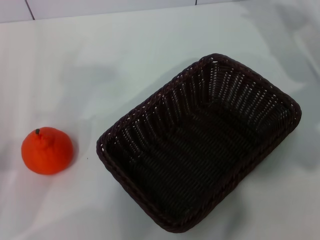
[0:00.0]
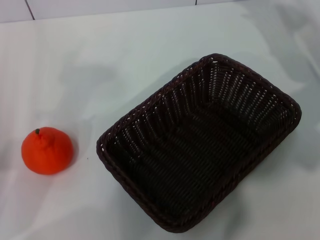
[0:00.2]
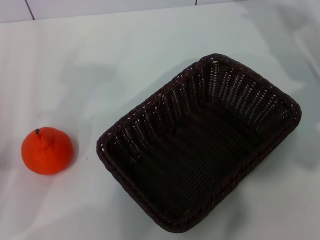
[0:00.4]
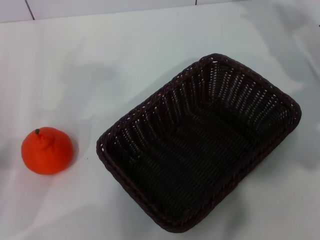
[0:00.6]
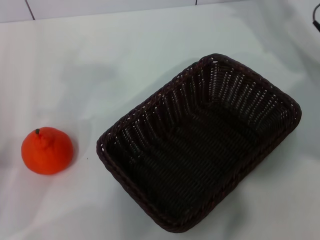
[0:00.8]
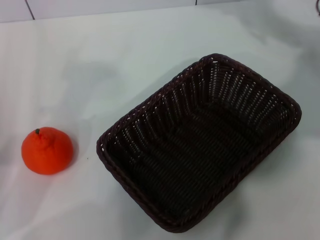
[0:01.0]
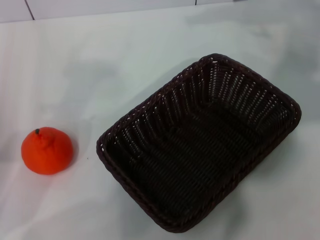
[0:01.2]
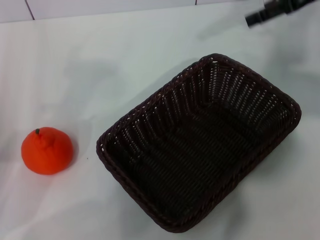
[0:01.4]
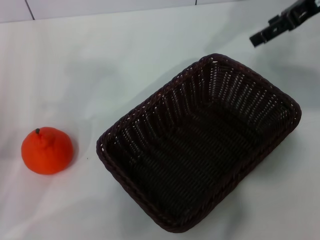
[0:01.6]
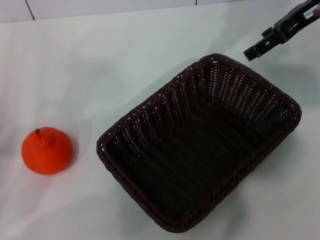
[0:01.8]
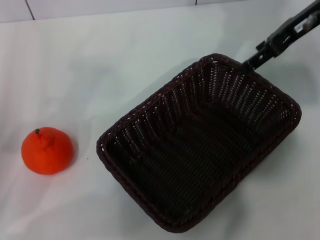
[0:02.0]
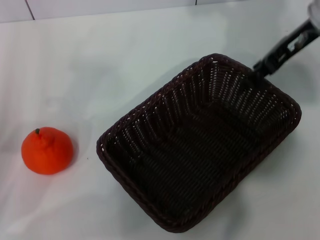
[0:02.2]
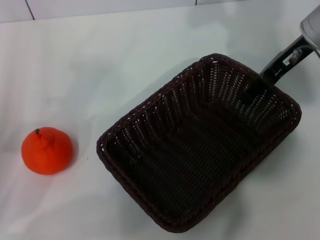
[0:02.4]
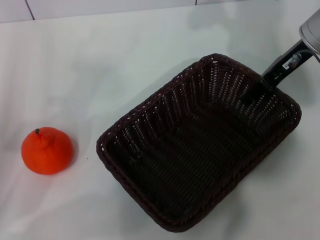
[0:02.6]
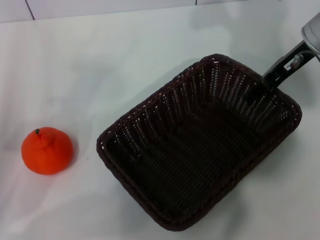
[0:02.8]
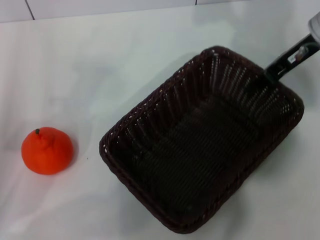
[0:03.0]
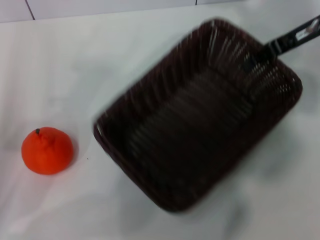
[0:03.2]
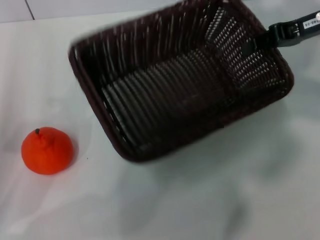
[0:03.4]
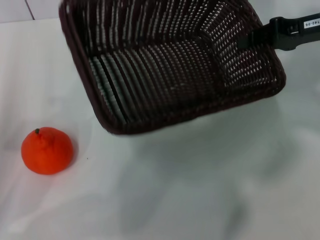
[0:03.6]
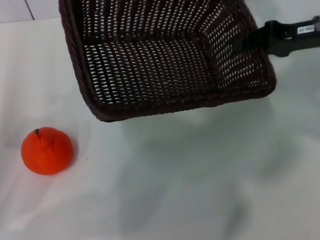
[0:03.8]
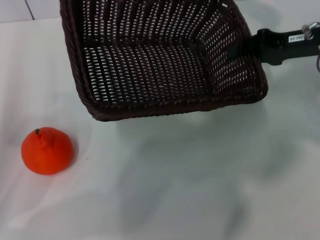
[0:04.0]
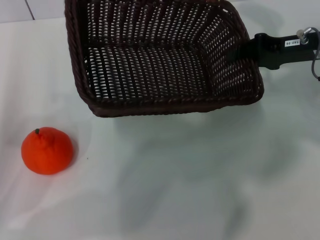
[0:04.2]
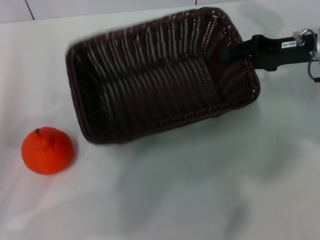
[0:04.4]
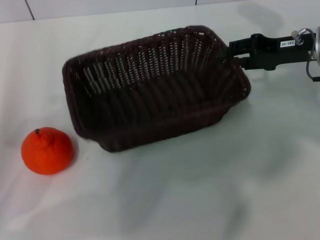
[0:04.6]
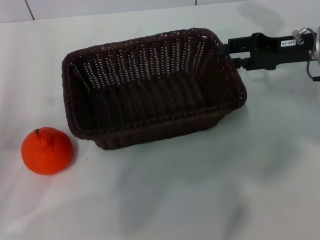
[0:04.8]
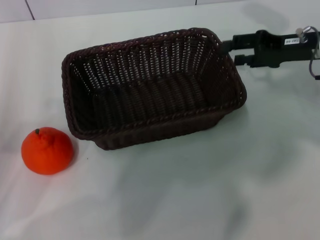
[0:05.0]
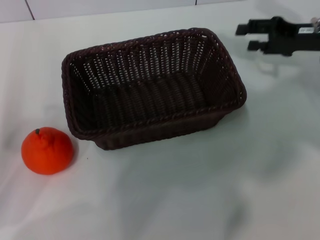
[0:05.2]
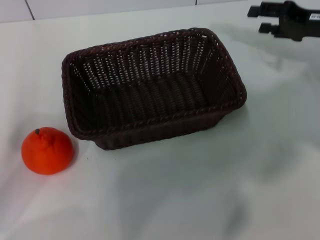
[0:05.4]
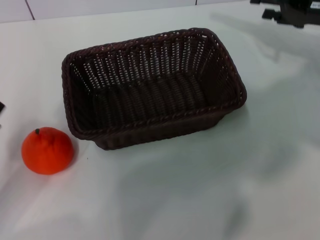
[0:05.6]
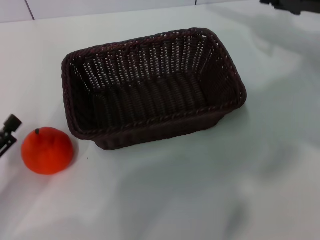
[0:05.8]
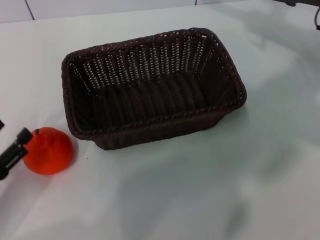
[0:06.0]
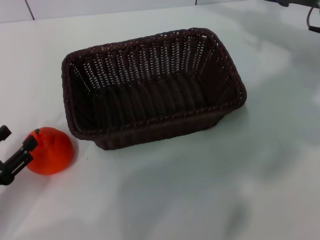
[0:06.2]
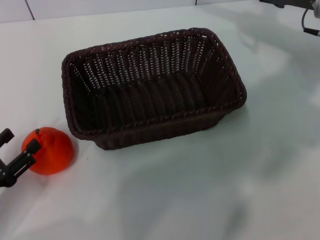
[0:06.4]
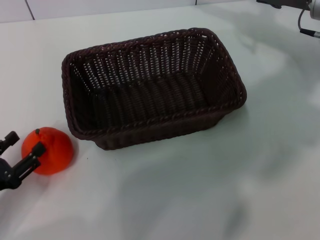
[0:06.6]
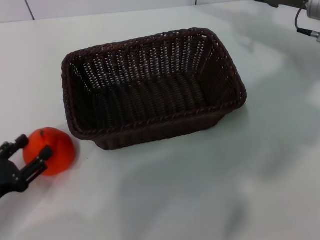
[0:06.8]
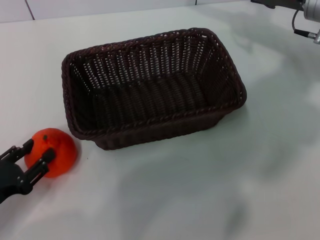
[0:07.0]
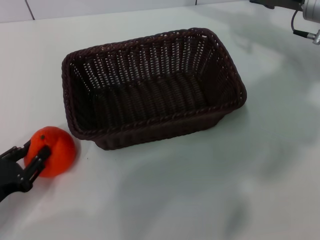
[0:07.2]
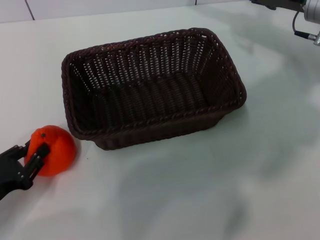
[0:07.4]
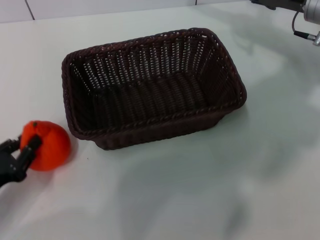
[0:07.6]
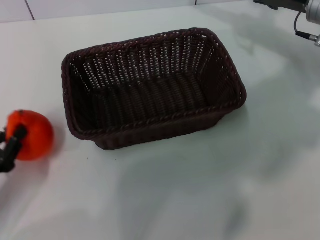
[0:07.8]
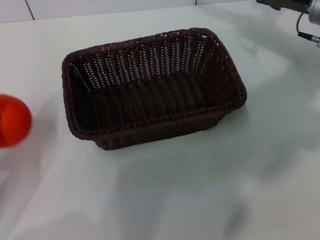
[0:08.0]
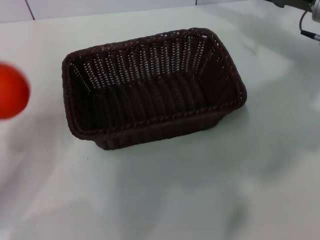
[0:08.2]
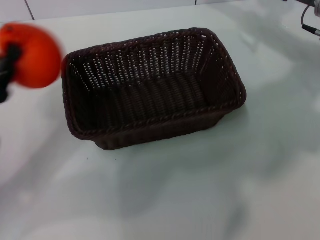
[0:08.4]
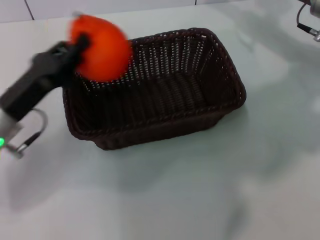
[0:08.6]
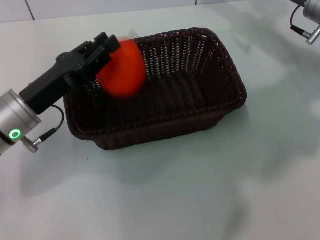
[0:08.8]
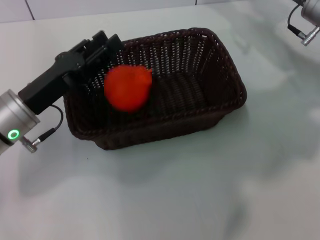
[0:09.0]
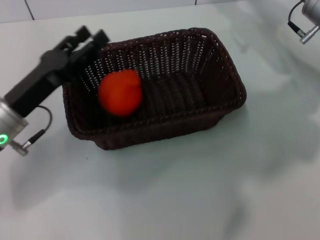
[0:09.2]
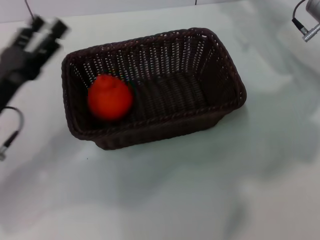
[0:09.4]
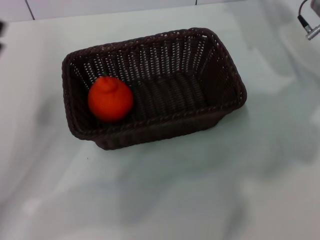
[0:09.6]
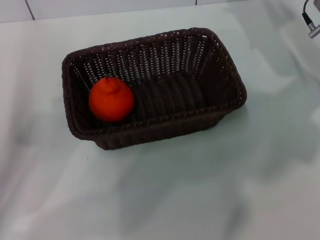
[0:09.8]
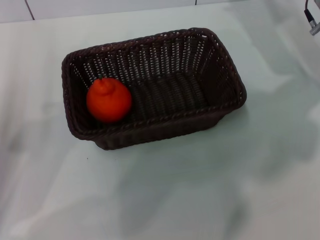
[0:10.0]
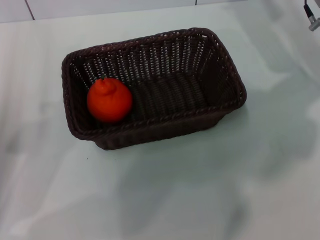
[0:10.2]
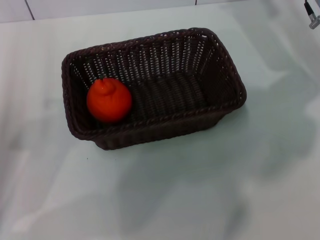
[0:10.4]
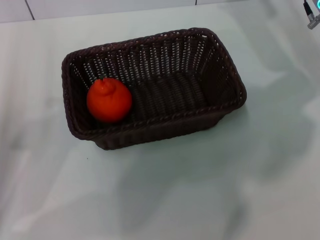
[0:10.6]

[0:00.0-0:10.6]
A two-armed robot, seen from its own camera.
Task of the whole recording: the right gripper pick up the black basket and place it horizontally in the middle of the table, the left gripper pick up the orange and place it into the black basket.
Step, 0:00.0 to 0:03.2: Pick up the dark basket with the right gripper.
Step, 0:03.4 to 0:05.2: Place the dark basket in the center of view with the right gripper.
Step, 0:05.4 to 0:08.0: Pick up the orange with the left gripper.
Step, 0:08.2 to 0:09.2: Place the orange into the dark basket with the left gripper.
0:00.0 to 0:01.6: The right gripper travels upward by some 15 cm.
0:01.6 to 0:03.0: The right gripper heads downward, covering about 5 cm, and closes.
0:03.0 to 0:04.6: The right gripper moves about 5 cm.
0:04.6 to 0:06.0: The right gripper opens up, while the left gripper travels downward by approximately 5 cm.
0:06.0 to 0:07.6: The left gripper closes its fingers.
0:07.6 to 0:09.0: The left gripper goes some 15 cm forward, to the right and upward.
0:09.0 to 0:10.6: The left gripper travels to the left and backward by roughly 15 cm, and opens up.

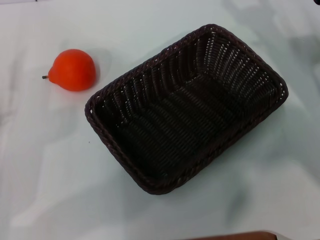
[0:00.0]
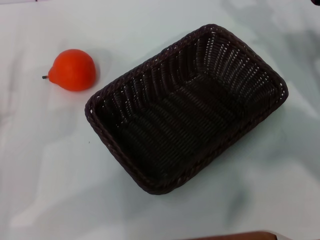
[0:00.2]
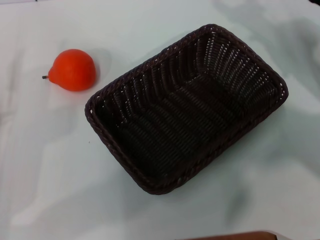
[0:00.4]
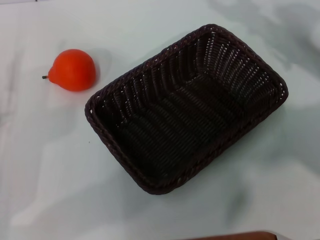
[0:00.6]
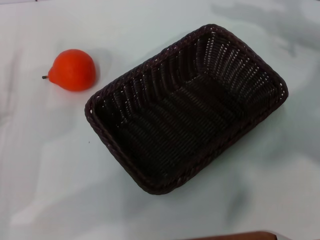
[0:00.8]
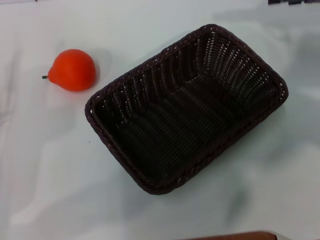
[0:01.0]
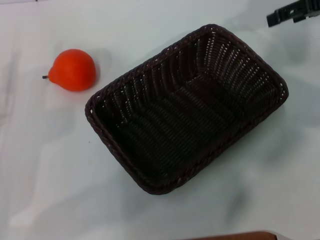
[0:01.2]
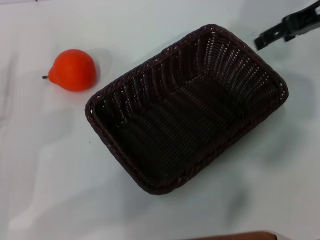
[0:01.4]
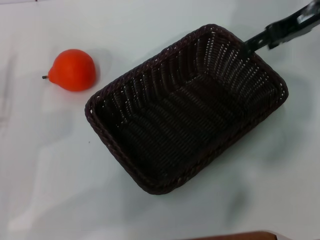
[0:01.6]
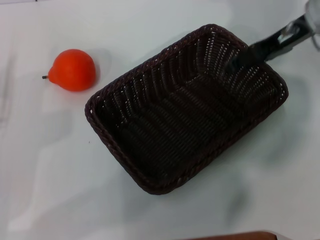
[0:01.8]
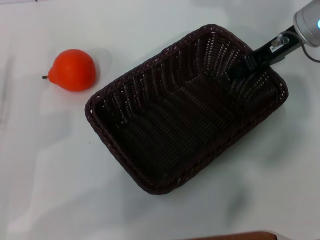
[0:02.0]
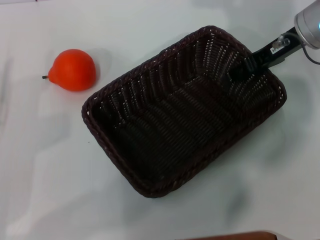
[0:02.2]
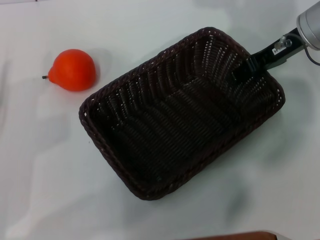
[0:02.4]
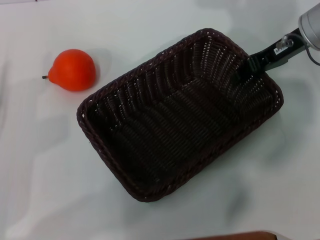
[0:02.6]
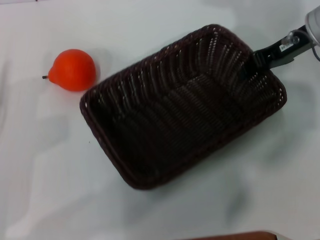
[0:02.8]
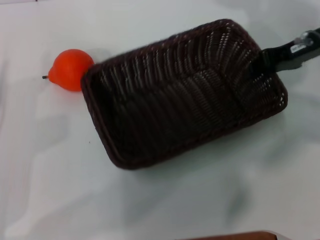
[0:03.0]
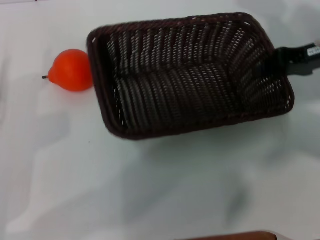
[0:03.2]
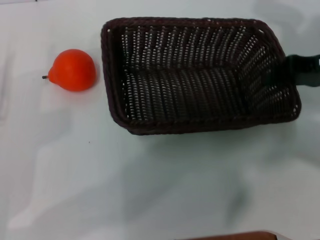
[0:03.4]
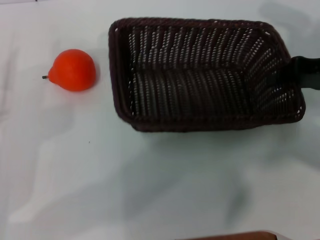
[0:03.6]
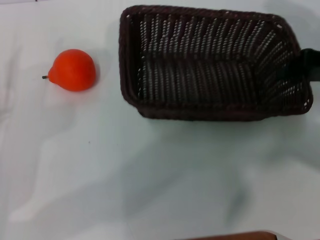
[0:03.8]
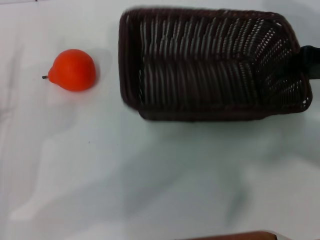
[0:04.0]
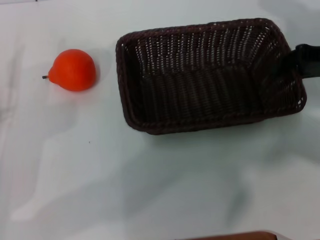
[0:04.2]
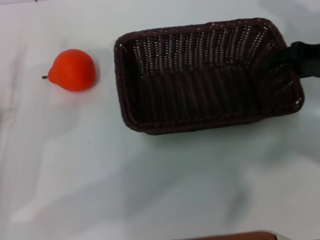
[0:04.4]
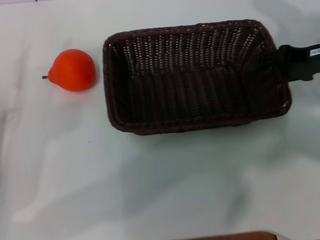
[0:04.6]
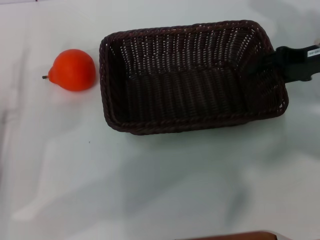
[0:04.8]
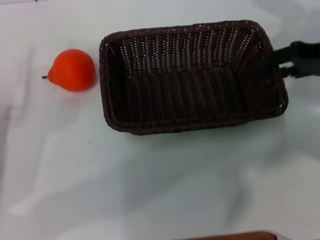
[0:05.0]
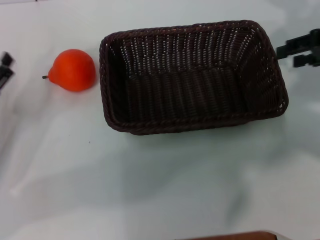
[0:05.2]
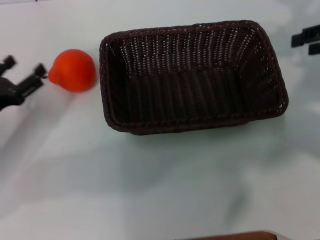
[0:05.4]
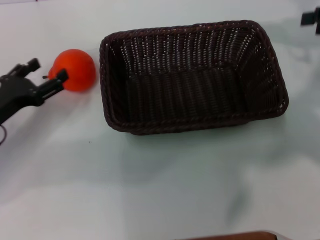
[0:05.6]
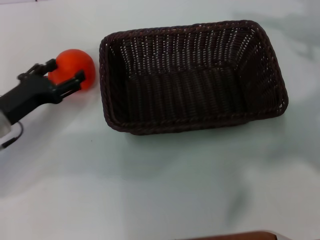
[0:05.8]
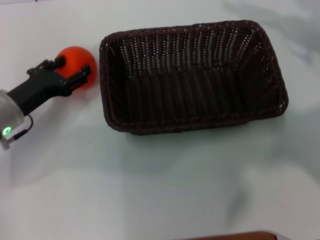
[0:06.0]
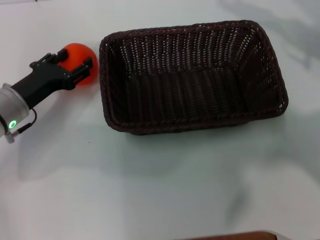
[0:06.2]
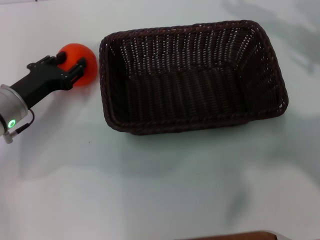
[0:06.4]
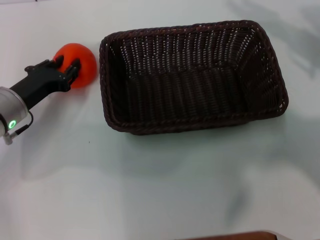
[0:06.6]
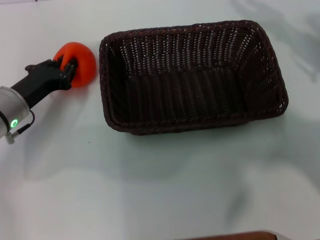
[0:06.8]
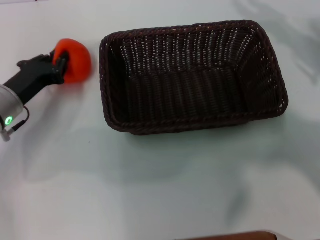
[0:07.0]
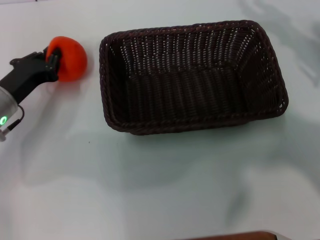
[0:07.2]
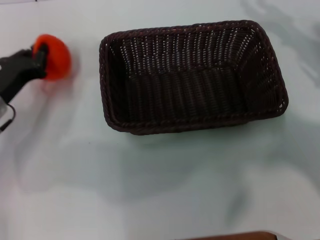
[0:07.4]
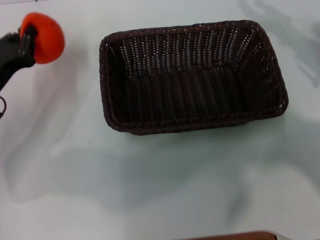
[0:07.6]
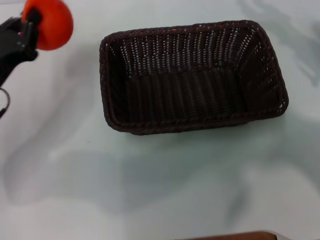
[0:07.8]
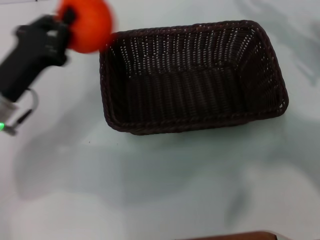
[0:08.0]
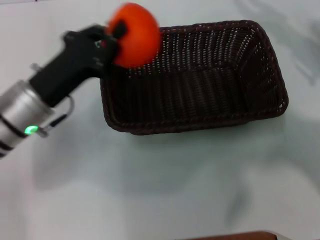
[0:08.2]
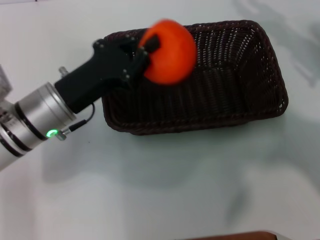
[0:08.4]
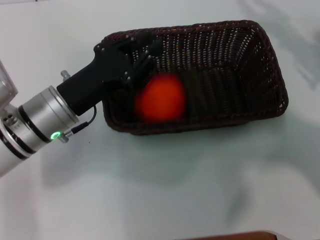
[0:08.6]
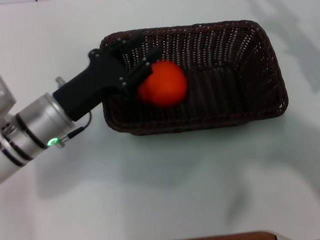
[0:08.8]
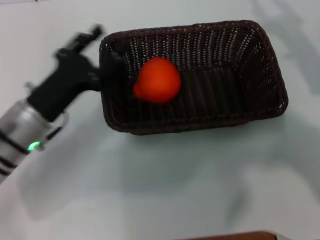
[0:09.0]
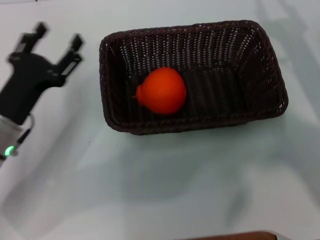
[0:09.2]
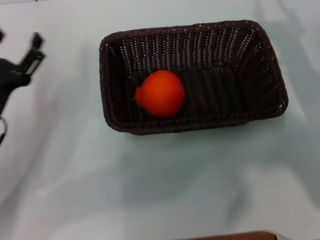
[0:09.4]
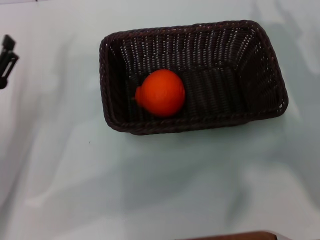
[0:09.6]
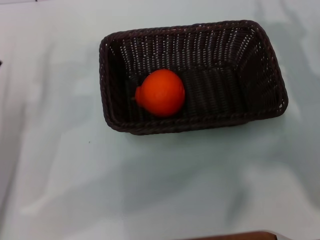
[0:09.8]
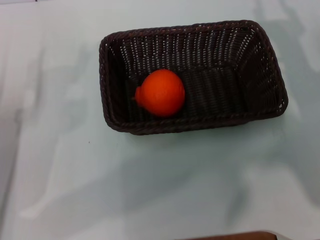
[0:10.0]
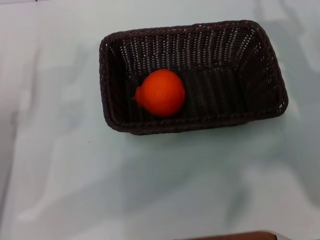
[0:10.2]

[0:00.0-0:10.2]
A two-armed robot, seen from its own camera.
Task of the whole recording: the right gripper pick up the black basket and place it horizontally in the middle of the table, the left gripper pick up the orange and place it into the black basket.
Step, 0:00.0 to 0:02.8: Pick up the dark basket with the right gripper.
Step, 0:03.0 to 0:05.0: Place the dark basket in the center of view with the right gripper.
Step, 0:05.4 to 0:07.2: Pick up the orange with the left gripper.
Step, 0:07.6 to 0:08.8: Place the orange into the dark basket with the left gripper.
0:00.0 to 0:01.4: The right gripper heads upward and forward, covering approximately 15 cm.
0:01.4 to 0:03.0: The right gripper moves downward, about 5 cm, and closes up.
0:03.0 to 0:04.4: The right gripper ends up approximately 5 cm from where it was.
0:04.4 to 0:05.8: The right gripper is displaced upward and to the right by about 10 cm, and opens its fingers. Meanwhile the left gripper travels forward by about 5 cm.
0:05.8 to 0:07.2: The right gripper shifts approximately 10 cm downward, while the left gripper closes up.
0:07.2 to 0:08.8: The left gripper travels to the right by some 10 cm.
0:08.8 to 0:10.2: The right gripper goes approximately 5 cm to the left. The left gripper shifts about 15 cm to the left and backward, and opens its fingers.

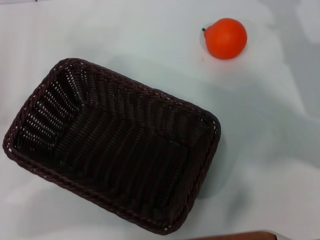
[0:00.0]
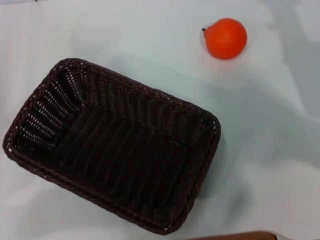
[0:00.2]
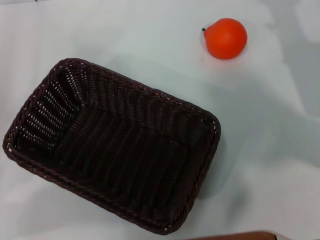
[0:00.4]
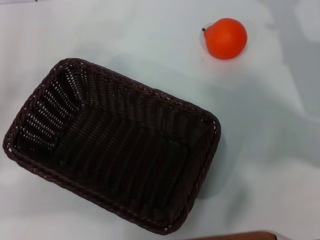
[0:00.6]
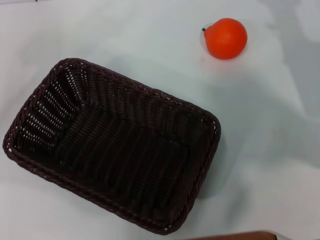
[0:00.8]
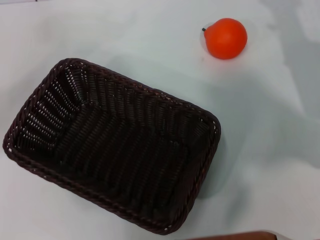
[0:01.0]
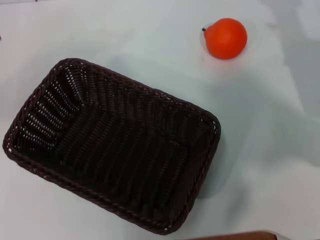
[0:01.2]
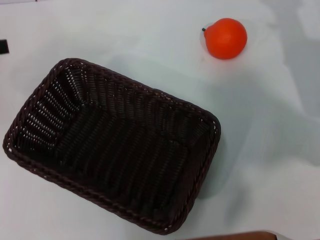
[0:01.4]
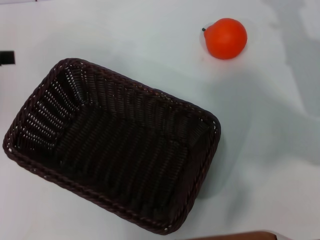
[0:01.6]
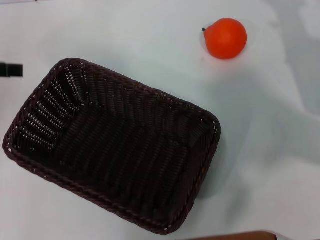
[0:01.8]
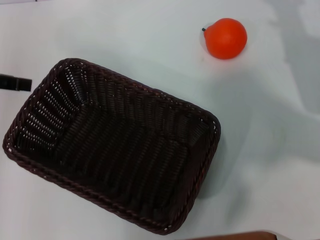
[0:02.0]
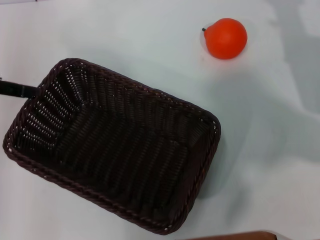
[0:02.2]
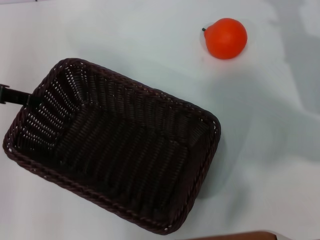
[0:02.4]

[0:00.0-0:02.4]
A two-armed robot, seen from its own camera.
Task of the whole recording: the left gripper pick up the black basket and place it horizontally in the middle of the table, the right gripper pick up the orange and place it into the black basket.
0:00.0 to 0:01.2: The left gripper travels upward and forward by about 10 cm.
0:01.2 to 0:02.4: The left gripper heads to the right, covering some 5 cm.
